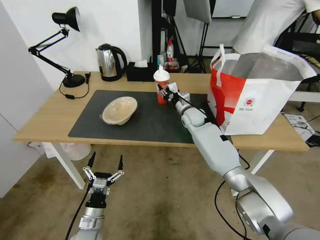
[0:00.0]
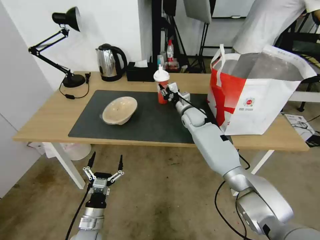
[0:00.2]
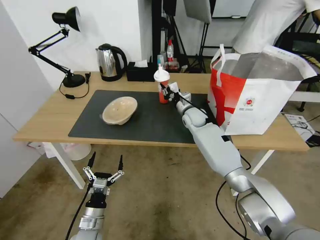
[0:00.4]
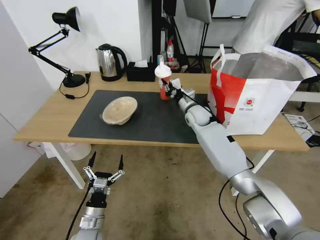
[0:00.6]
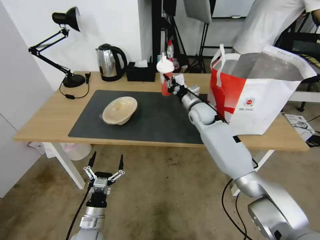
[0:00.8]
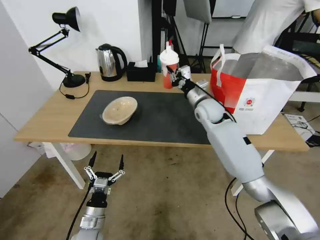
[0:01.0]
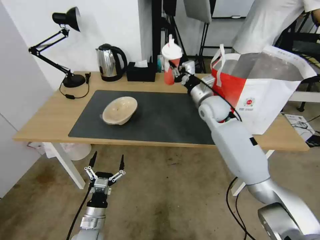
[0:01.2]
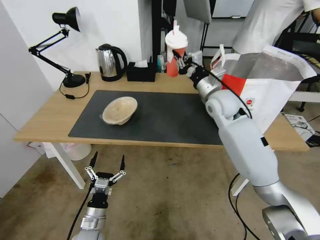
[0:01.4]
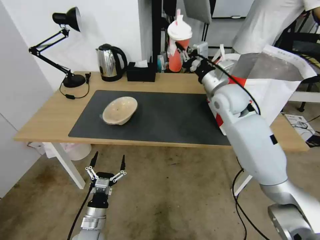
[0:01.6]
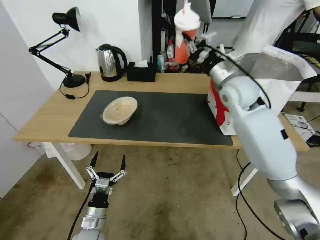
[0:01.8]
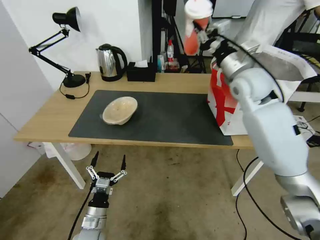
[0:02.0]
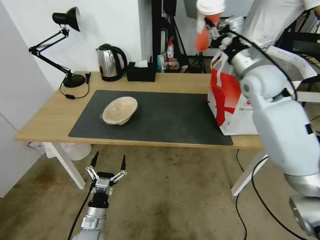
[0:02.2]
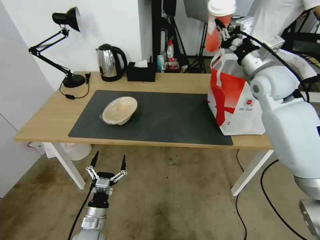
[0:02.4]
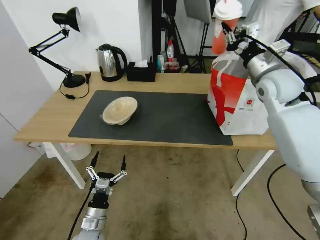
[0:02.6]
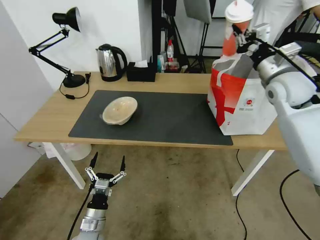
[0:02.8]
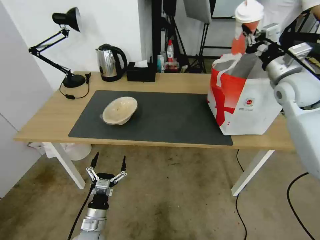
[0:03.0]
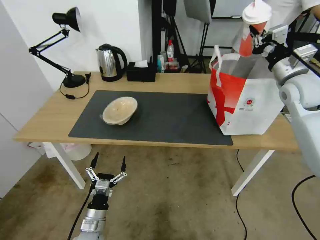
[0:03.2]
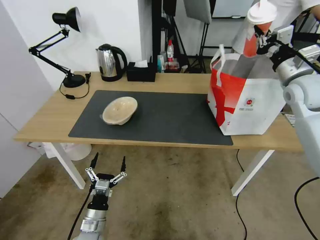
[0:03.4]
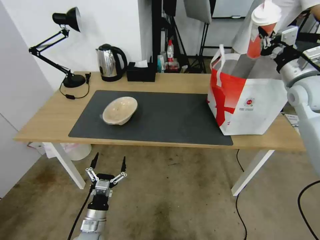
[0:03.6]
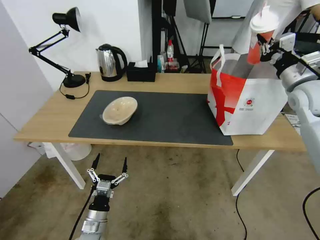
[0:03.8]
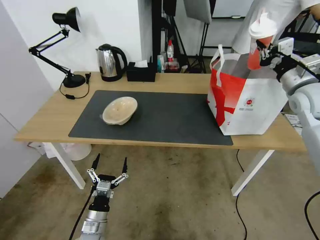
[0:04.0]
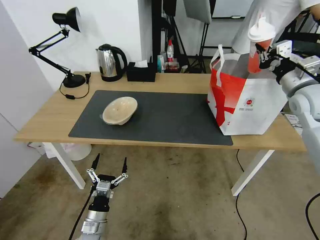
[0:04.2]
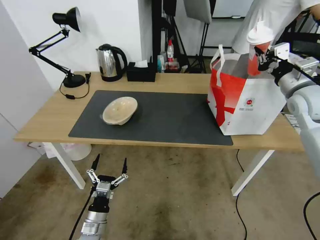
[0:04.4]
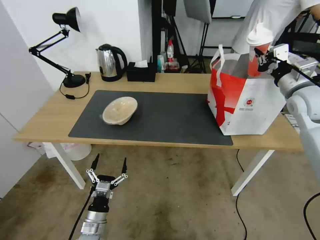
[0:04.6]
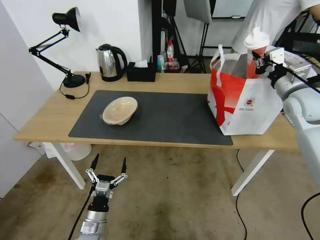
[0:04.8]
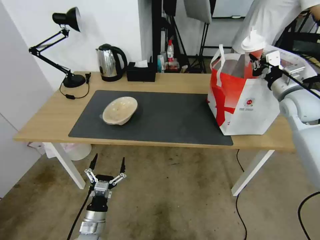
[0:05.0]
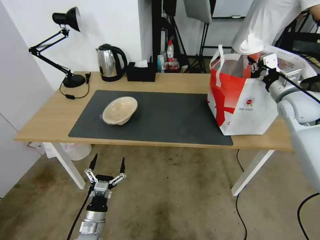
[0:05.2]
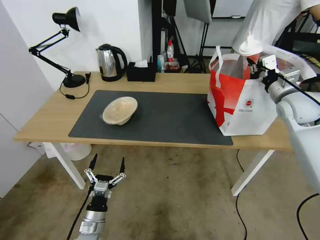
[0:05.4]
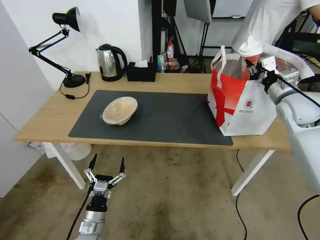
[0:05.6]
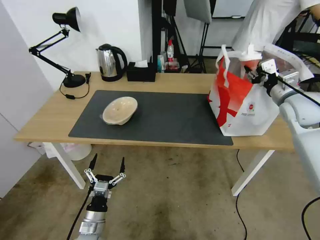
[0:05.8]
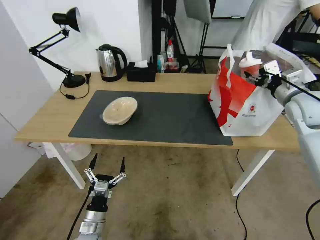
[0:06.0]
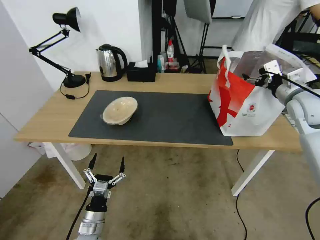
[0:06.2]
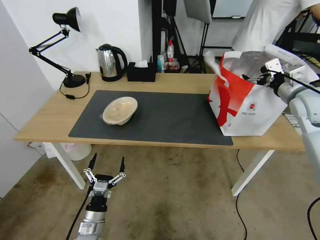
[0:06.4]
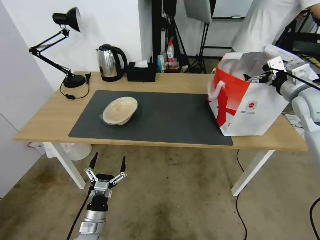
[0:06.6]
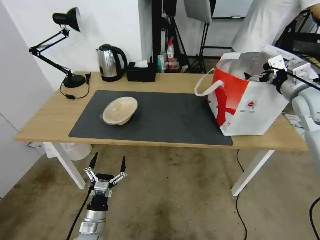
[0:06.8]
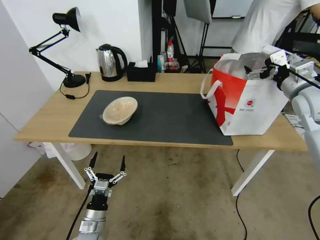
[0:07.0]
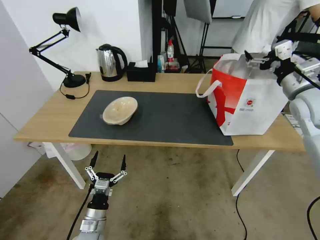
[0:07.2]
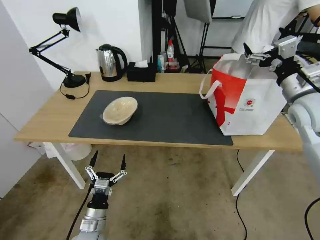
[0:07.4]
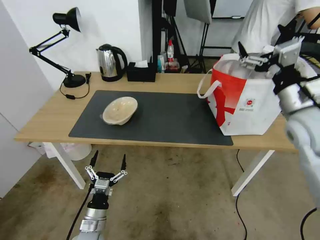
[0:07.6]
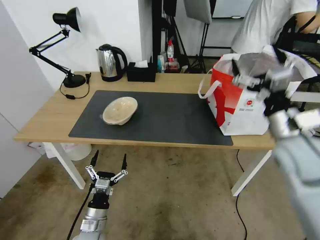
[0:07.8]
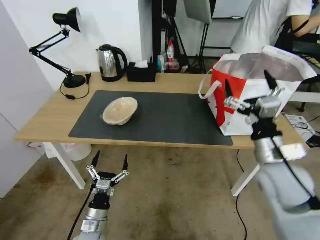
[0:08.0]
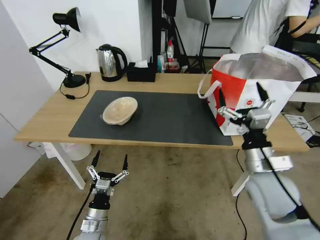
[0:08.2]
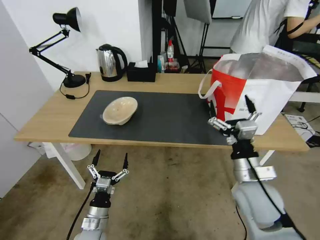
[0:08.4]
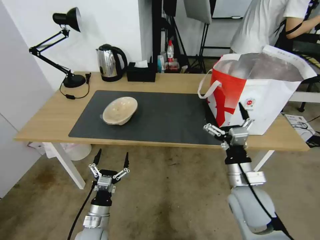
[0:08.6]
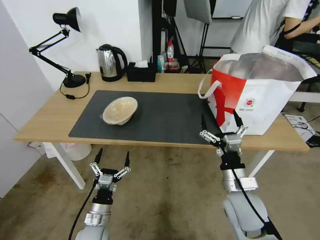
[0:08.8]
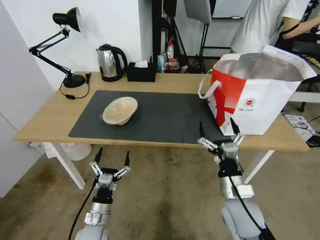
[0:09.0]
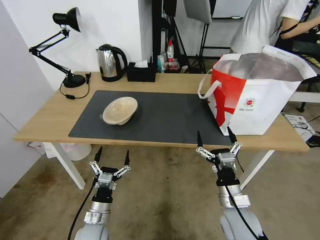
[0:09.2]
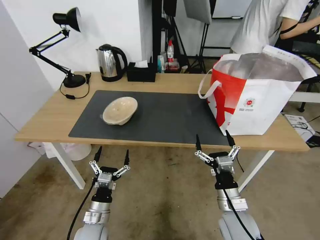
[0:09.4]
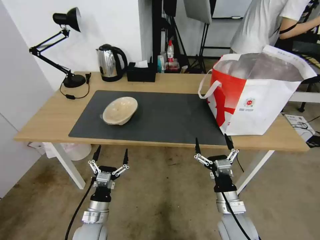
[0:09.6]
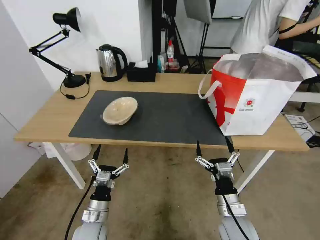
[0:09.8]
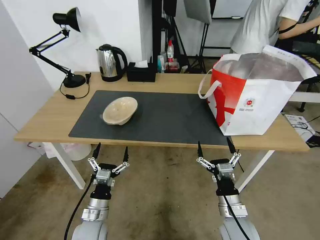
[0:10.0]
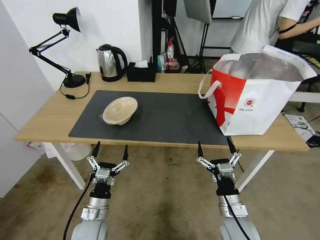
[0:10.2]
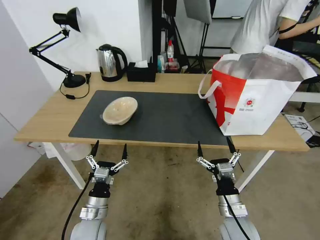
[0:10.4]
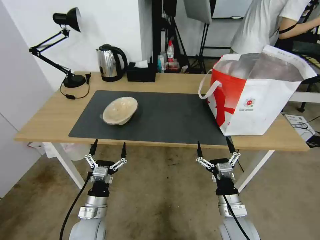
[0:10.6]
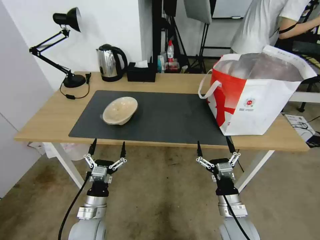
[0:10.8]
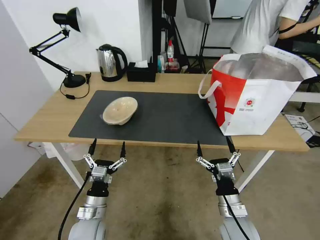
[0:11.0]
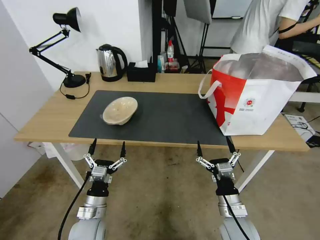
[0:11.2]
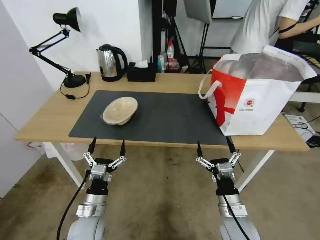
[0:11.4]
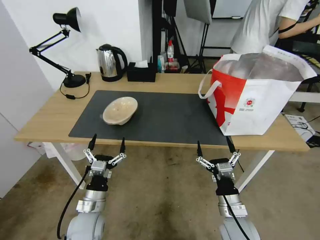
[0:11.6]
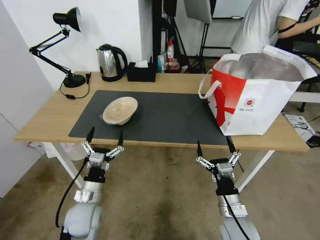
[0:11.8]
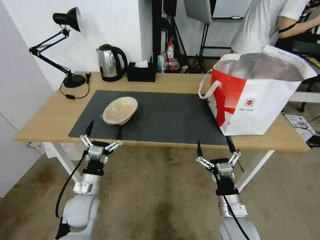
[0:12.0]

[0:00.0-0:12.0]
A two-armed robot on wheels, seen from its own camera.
Task of the whole recording: Pick up the trash from the table and place it into the takeout bag.
0:00.0 to 0:01.6: The right gripper moves upward and backward, roughly 20 cm.
0:01.6 to 0:03.0: The right gripper is displaced to the right by about 15 cm.
0:03.0 to 0:04.4: The right gripper ends up some 5 cm from where it was.
0:04.4 to 0:06.0: The right gripper opens its fingers.
0:06.0 to 0:07.6: The right gripper is displaced backward and to the left by roughly 10 cm, and opens up.
0:07.6 to 0:09.0: The right gripper is displaced downward, to the left and backward by some 30 cm.
0:09.0 to 0:10.4: The right gripper goes roughly 5 cm downward.
0:10.4 to 0:12.0: The left gripper shifts some 5 cm forward.

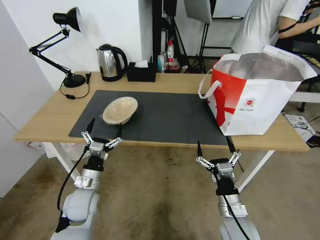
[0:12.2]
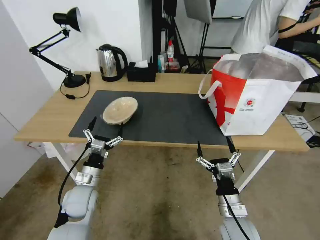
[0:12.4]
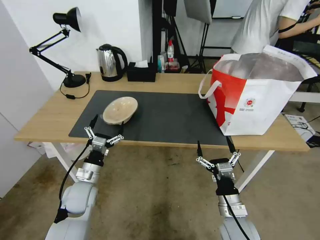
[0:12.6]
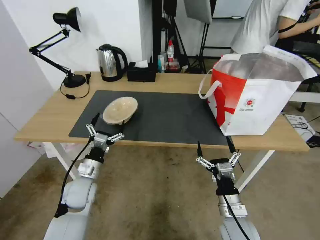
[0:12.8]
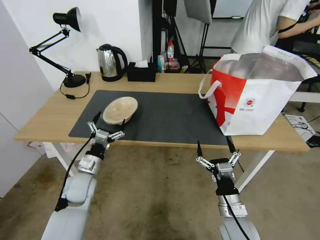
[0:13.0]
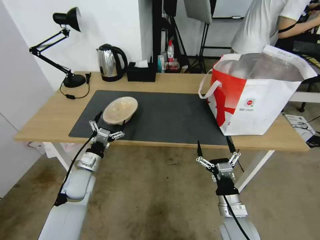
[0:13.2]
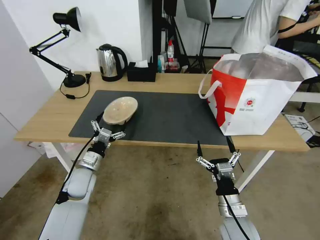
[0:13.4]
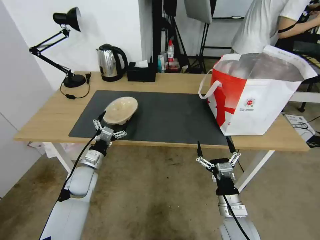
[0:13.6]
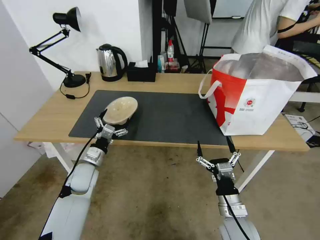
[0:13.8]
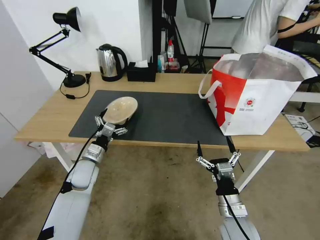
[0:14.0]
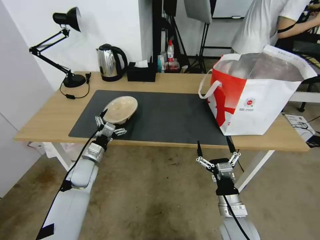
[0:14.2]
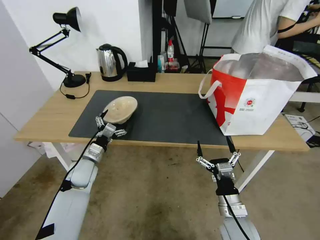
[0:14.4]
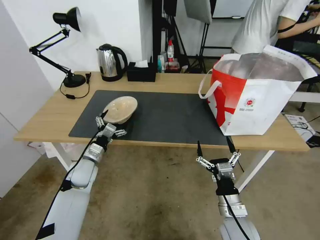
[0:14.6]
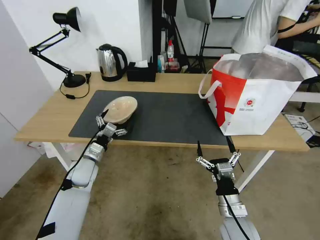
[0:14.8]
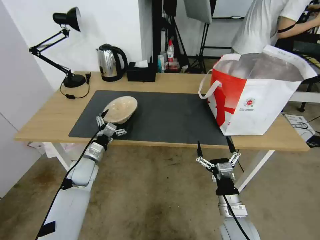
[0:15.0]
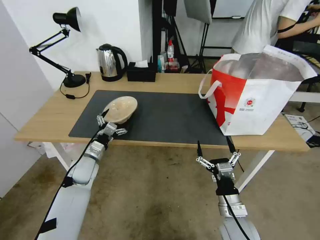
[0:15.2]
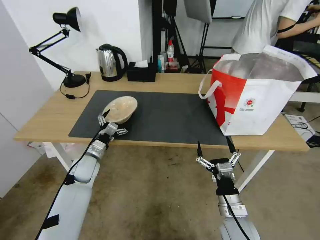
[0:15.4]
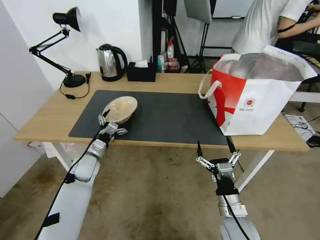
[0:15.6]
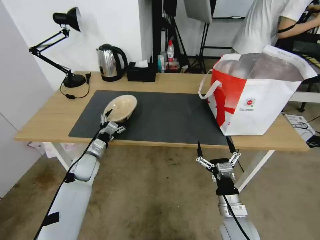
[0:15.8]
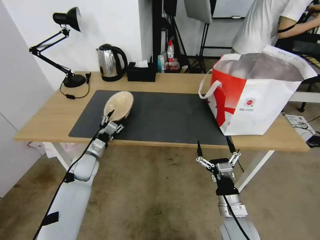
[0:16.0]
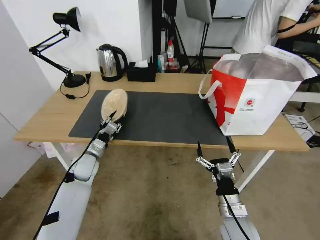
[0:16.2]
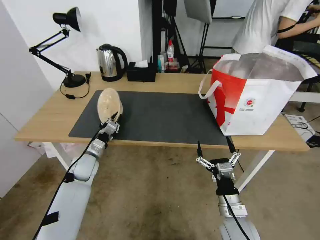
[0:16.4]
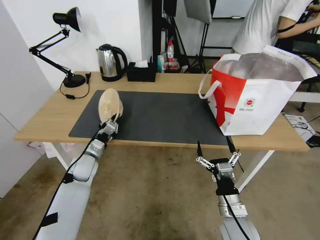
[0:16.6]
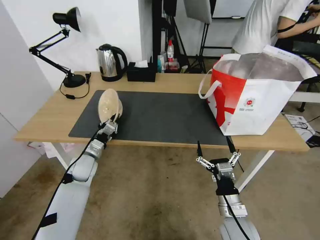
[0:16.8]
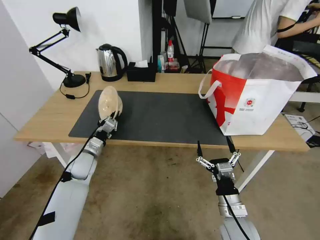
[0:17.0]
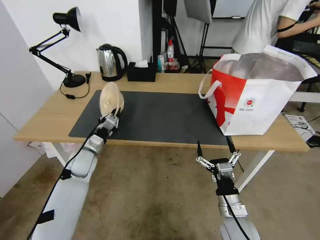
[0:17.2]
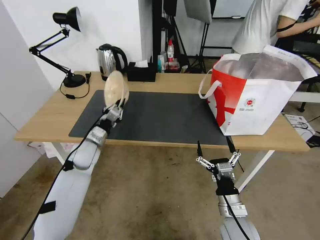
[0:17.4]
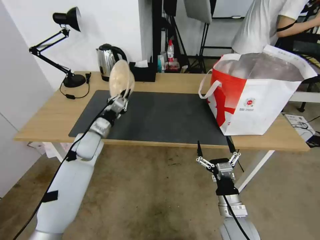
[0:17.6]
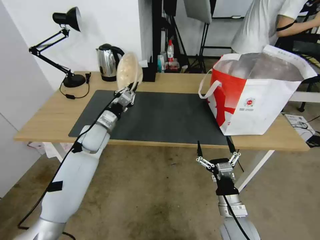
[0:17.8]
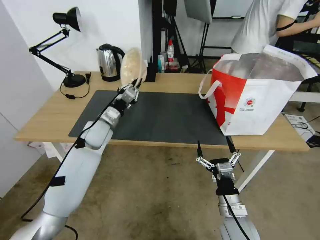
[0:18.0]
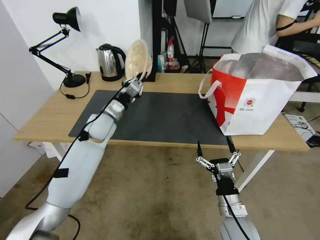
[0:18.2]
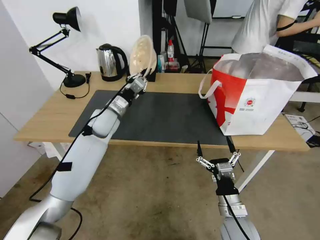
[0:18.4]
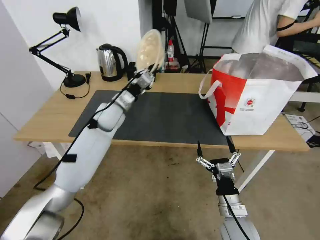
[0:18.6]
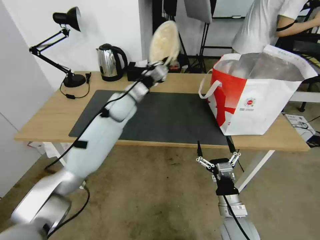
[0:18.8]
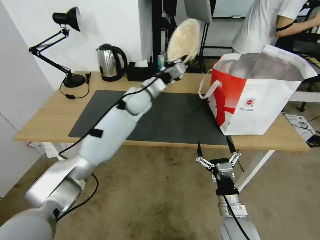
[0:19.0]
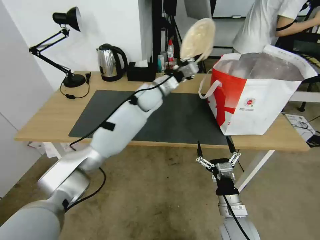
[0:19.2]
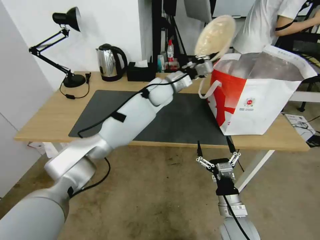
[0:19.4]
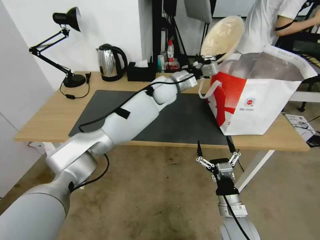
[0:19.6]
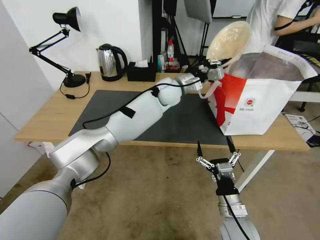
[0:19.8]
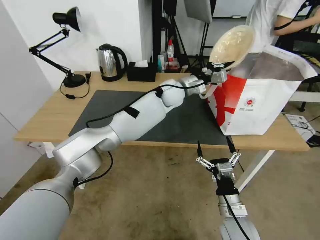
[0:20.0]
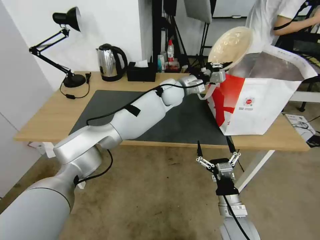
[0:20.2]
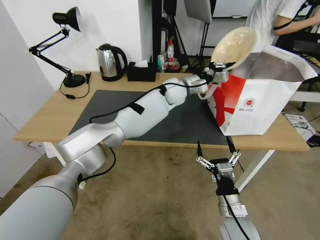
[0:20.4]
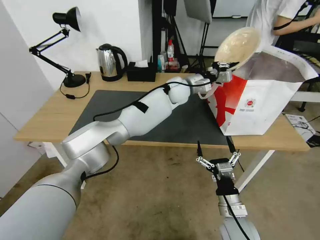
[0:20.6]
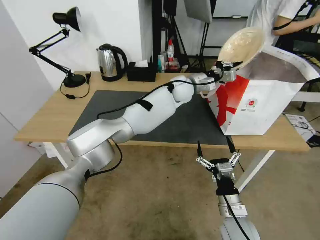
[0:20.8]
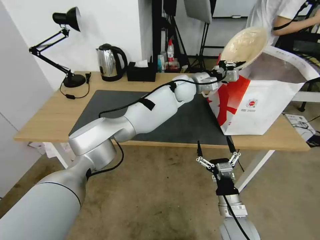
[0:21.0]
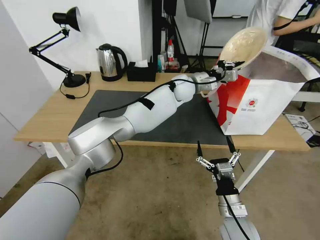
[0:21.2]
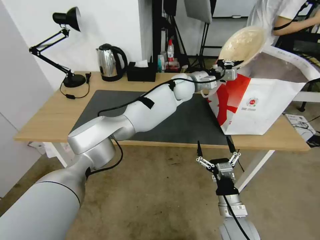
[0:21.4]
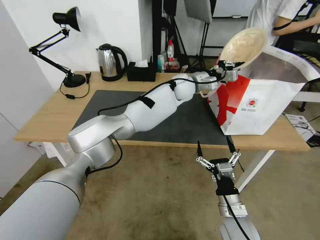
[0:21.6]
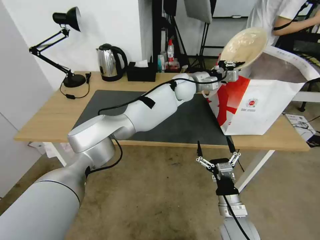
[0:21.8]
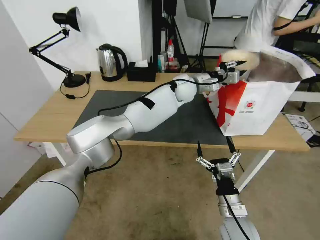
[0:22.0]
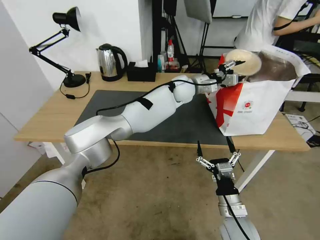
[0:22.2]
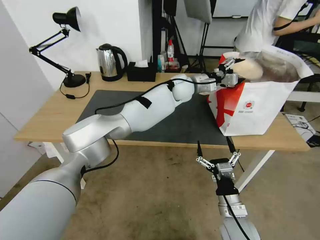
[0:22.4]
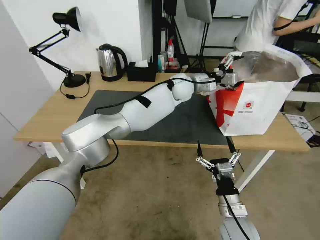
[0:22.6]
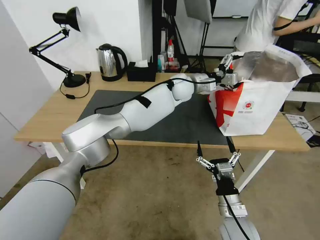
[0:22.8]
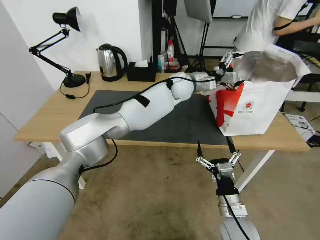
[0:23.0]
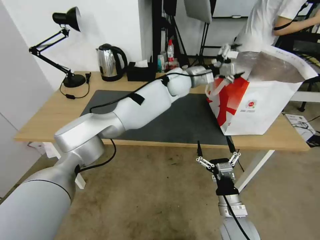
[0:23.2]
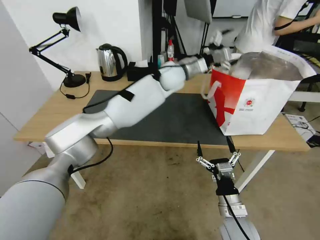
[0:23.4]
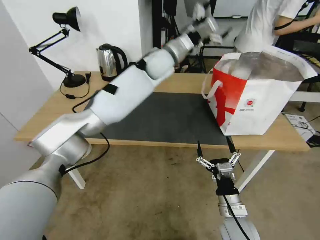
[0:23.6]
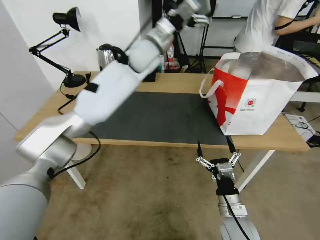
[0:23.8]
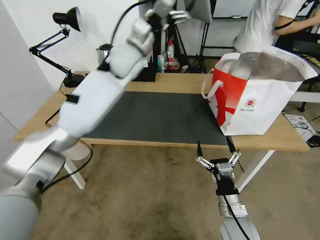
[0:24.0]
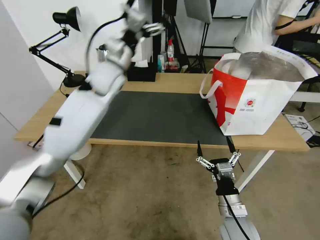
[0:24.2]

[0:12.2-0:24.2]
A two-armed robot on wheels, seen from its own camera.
Task of the whole recording: Pick up the trash from the table and place it into the takeout bag.
0:12.2 to 0:13.8: The left gripper goes some 5 cm forward.
0:13.8 to 0:15.2: The grippers stay close to where they were, moving slightly.
0:15.2 to 0:16.6: The left gripper closes.
0:16.6 to 0:18.2: The left gripper shifts approximately 20 cm upward, forward and to the right.
0:18.2 to 0:19.8: The left gripper shifts some 25 cm to the right and forward.
0:19.8 to 0:21.2: The left gripper shifts some 5 cm to the right.
0:21.2 to 0:22.6: The left gripper opens.
0:22.6 to 0:24.2: The left gripper is displaced to the left by some 25 cm.
